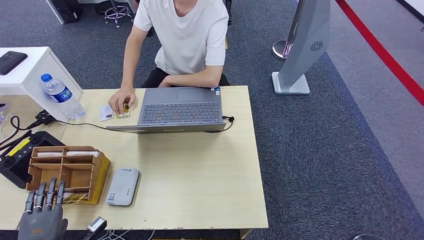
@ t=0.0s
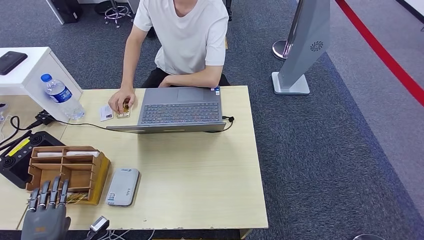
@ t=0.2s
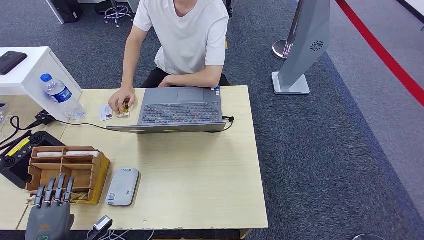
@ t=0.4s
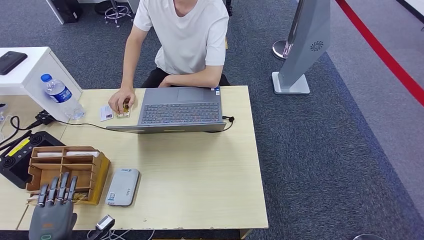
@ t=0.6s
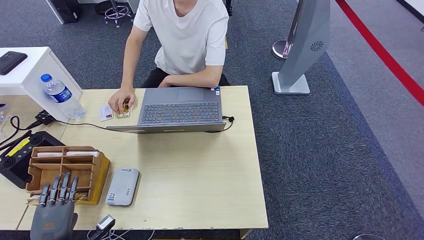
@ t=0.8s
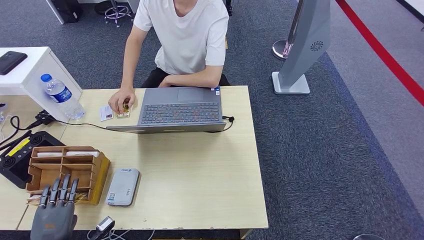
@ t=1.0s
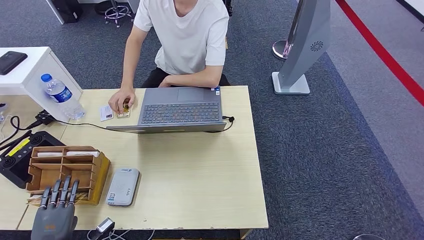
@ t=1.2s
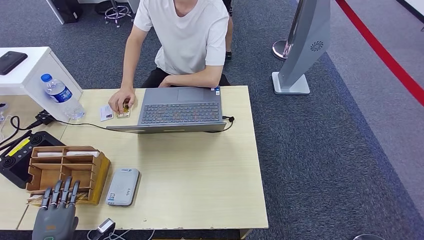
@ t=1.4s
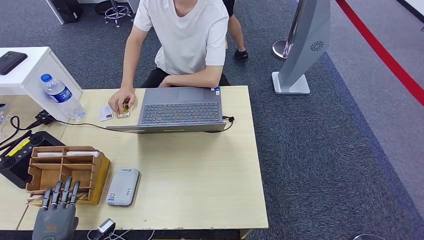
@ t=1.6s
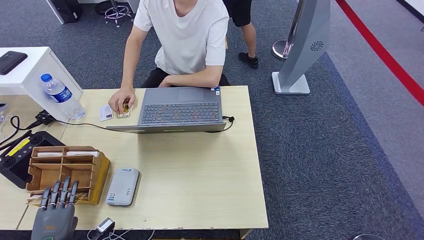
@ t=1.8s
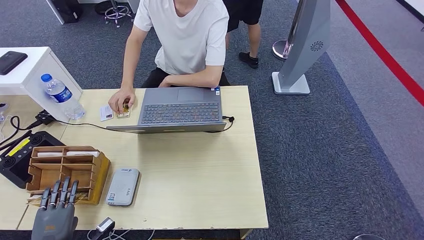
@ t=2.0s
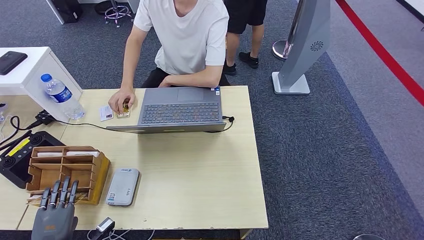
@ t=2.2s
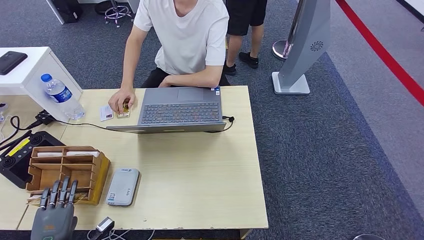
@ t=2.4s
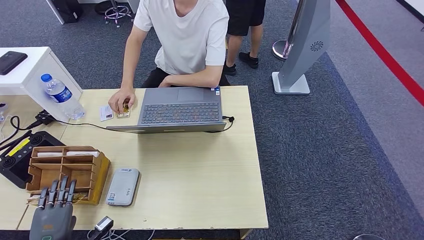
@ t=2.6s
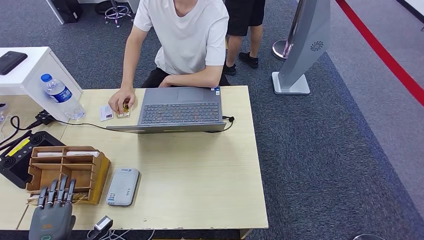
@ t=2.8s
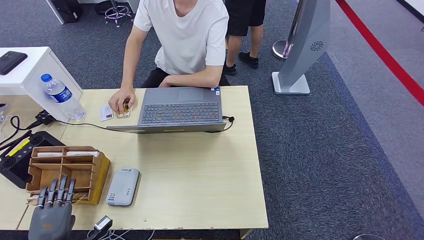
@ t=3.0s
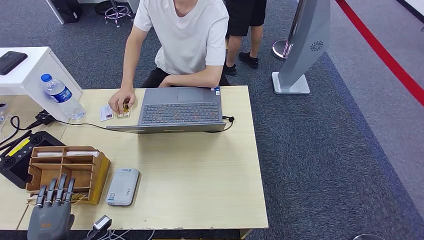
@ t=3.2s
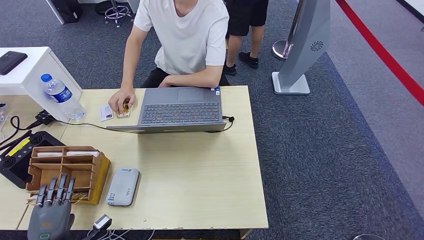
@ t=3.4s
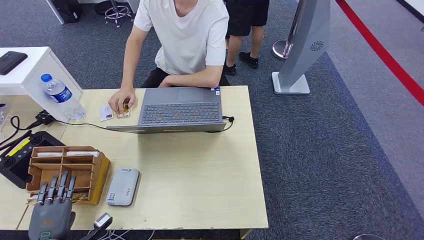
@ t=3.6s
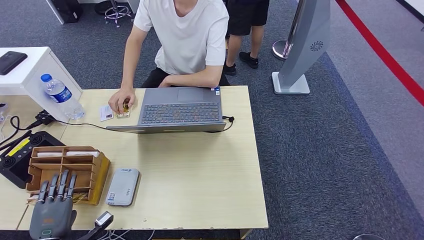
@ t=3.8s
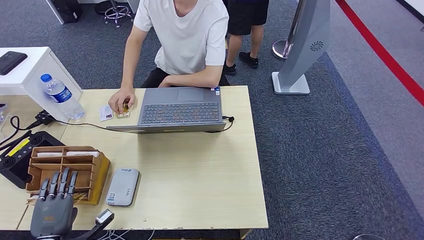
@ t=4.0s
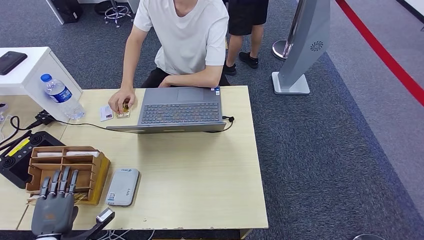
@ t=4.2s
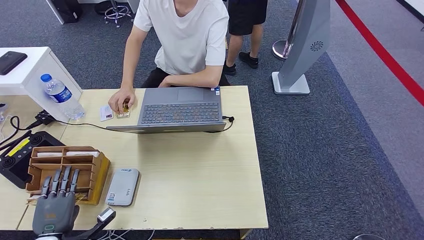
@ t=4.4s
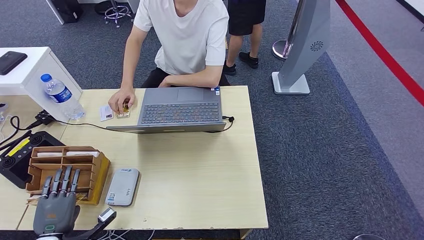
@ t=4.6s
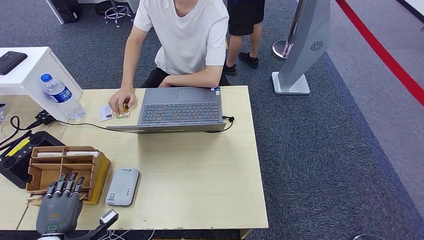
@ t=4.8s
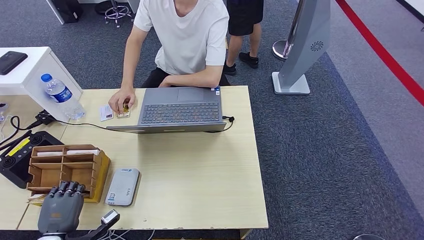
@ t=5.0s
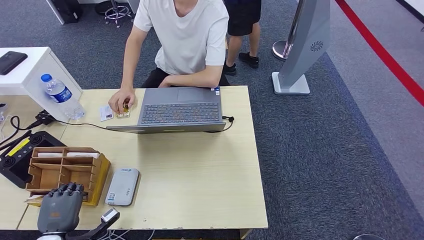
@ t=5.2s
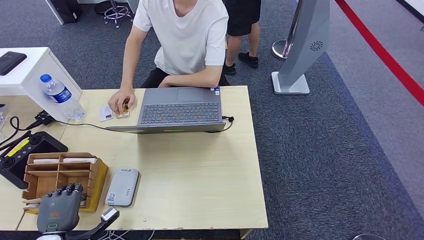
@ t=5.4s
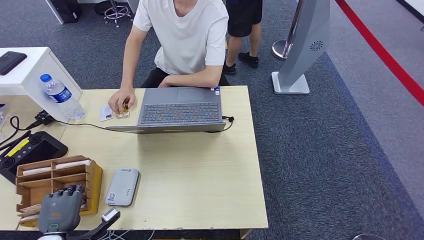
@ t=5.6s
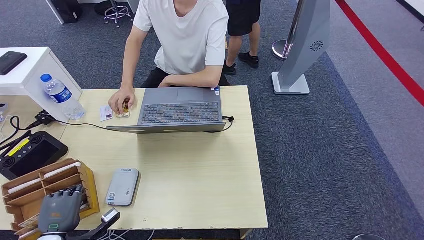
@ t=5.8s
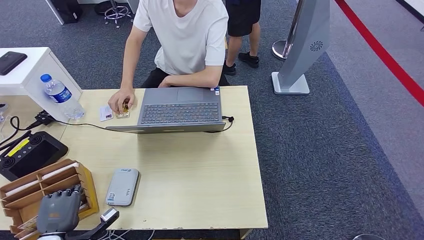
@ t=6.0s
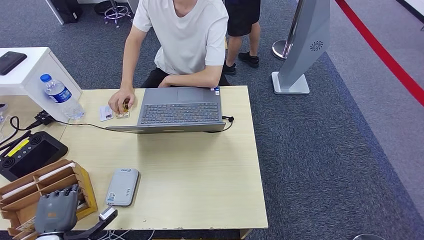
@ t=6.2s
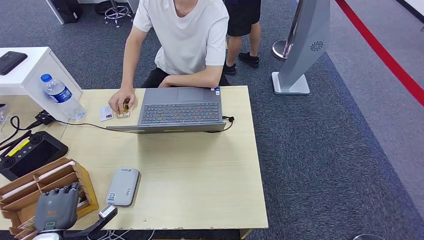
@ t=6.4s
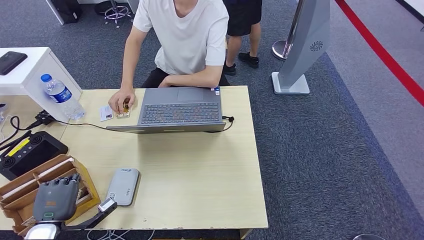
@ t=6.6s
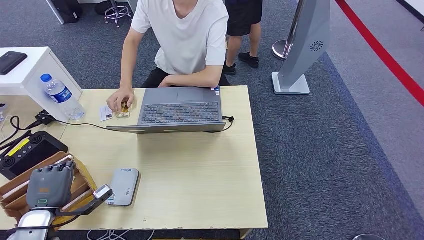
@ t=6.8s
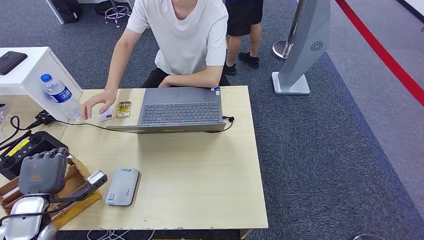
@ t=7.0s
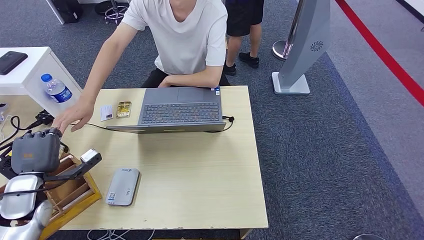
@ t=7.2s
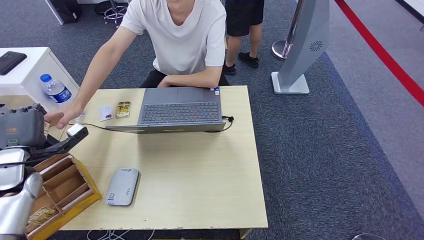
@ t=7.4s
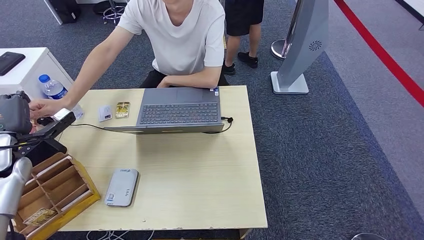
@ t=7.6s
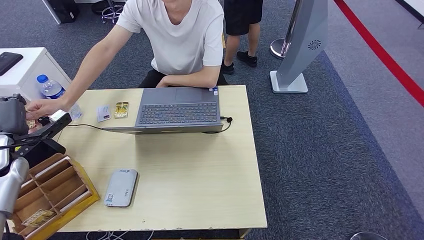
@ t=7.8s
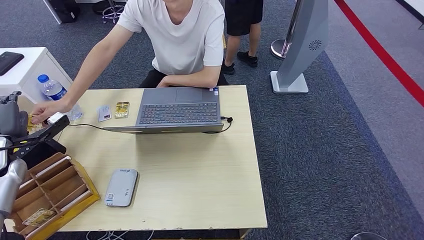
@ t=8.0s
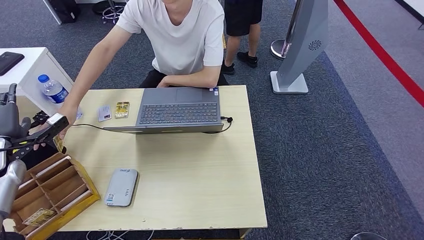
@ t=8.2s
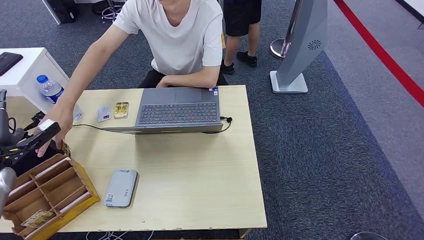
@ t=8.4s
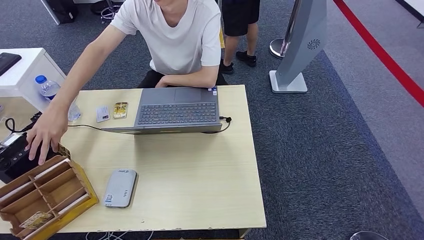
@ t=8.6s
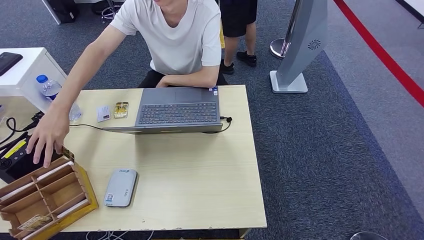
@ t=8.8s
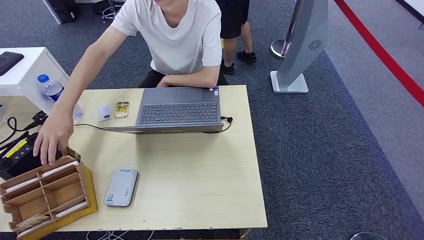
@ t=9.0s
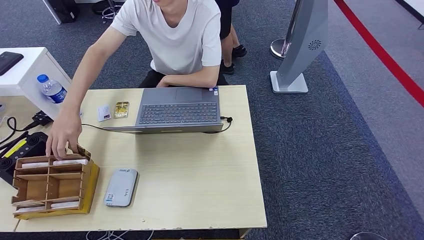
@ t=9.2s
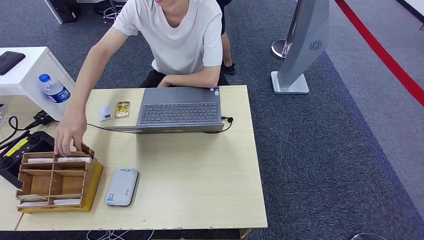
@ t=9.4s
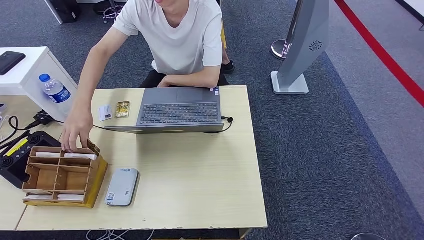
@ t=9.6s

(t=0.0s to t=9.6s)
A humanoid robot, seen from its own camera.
Step, t=0.0s - t=6.2s: Pick up the room key from the key card box.
t=0.0s - t=1.6s: The hands move only a little.
t=1.6s - t=3.2s: Both hands stay put.
t=3.2s - t=4.8s: The hands make only small movements.
t=4.8s - t=6.4s: The two hands keep their place.
t=6.4s - t=8.0s: The left hand moves forward, upward and to the left, roughly 25 cm.
t=8.0s - t=9.6s: The left hand is displaced backward and to the left by about 40 cm.

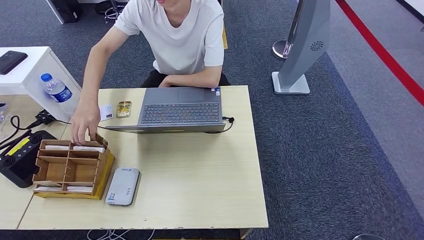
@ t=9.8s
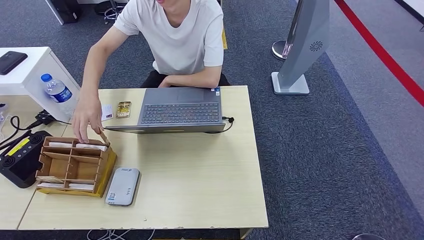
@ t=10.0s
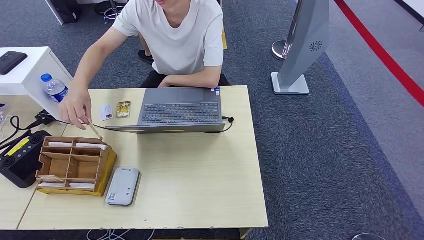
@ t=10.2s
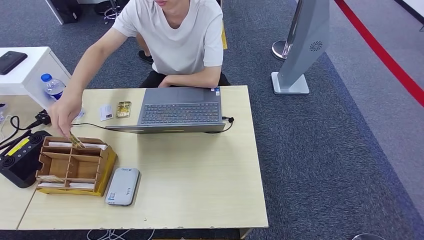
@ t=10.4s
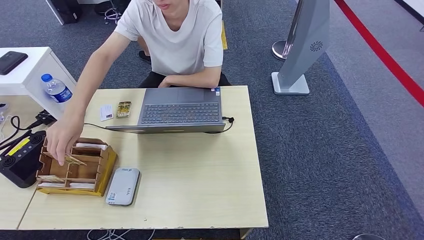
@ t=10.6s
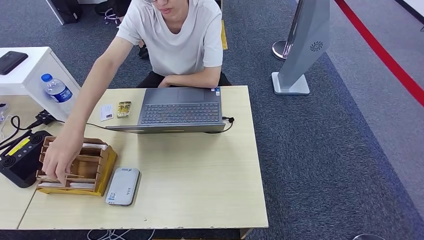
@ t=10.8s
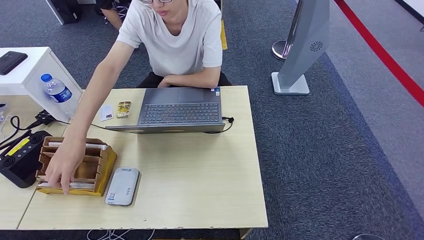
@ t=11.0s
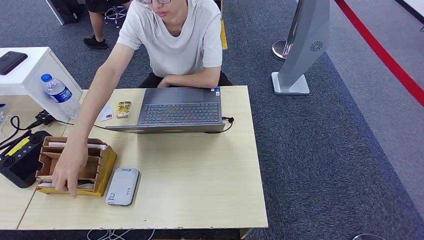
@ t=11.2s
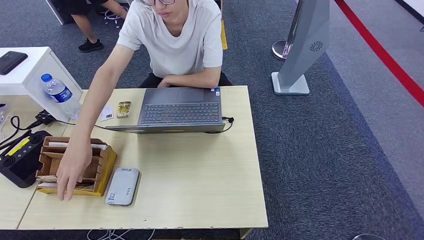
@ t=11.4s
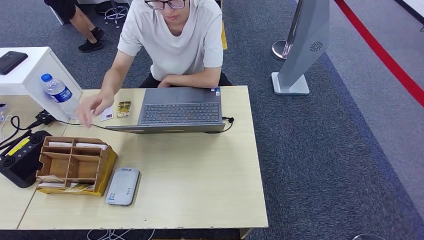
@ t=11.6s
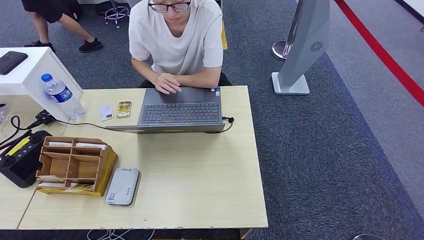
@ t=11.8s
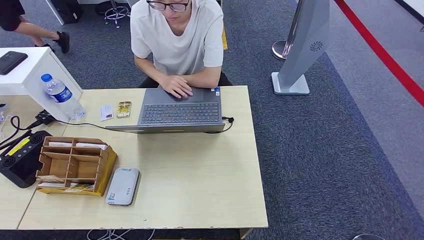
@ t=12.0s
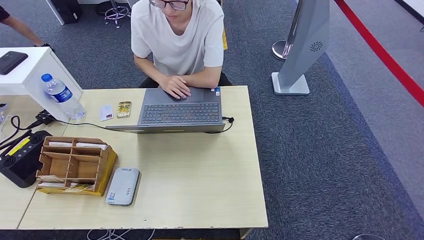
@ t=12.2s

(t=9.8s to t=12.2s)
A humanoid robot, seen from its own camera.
Step, t=9.8s - t=12.2s: Hand the room key to the person.
t=9.8s - t=11.0s: The left hand moves to the right and downward, about 40 cm.

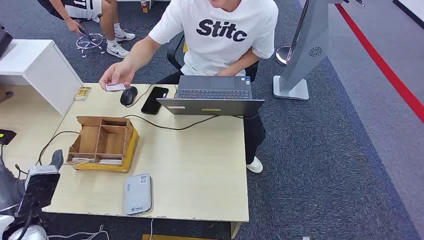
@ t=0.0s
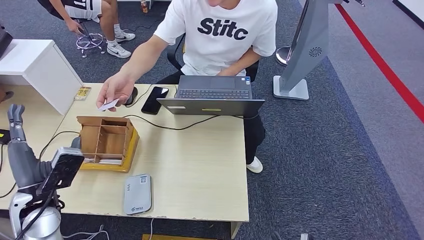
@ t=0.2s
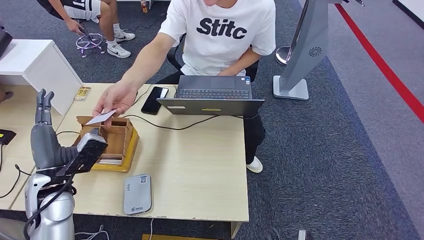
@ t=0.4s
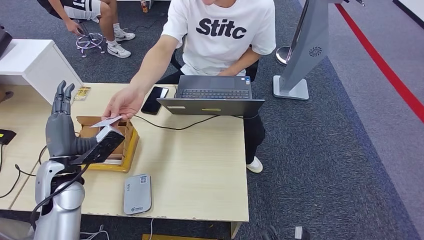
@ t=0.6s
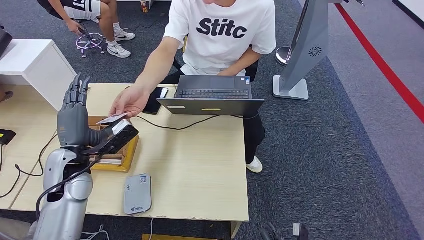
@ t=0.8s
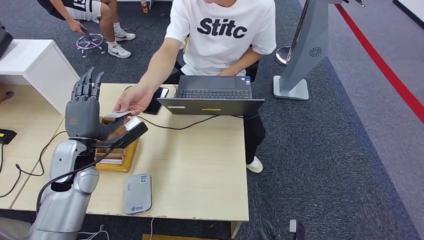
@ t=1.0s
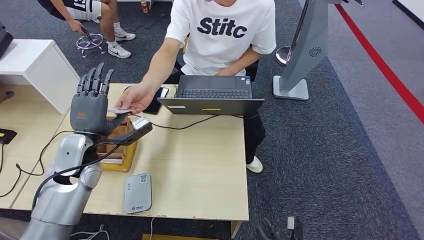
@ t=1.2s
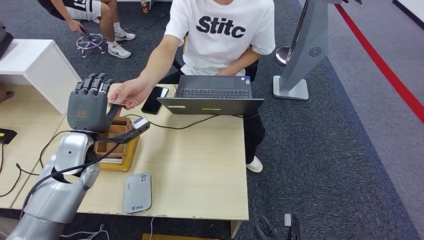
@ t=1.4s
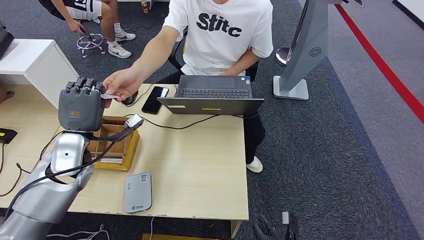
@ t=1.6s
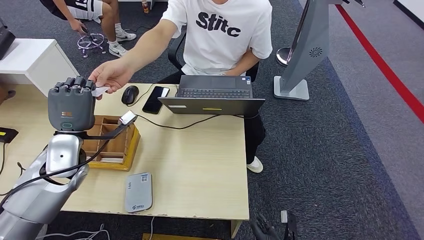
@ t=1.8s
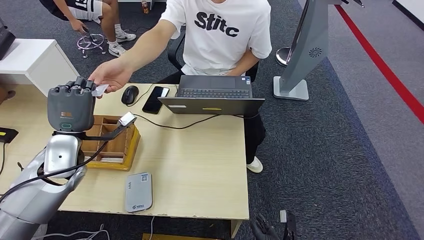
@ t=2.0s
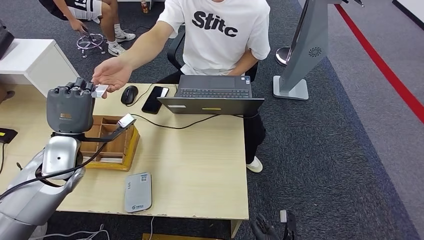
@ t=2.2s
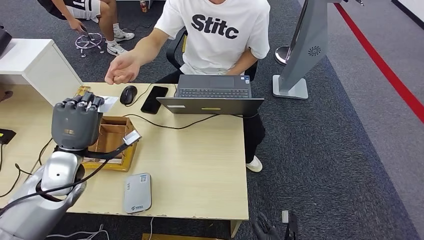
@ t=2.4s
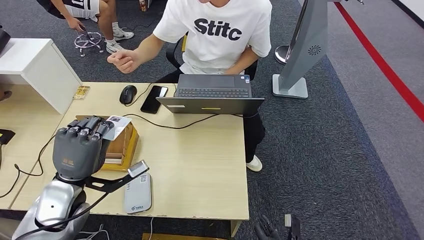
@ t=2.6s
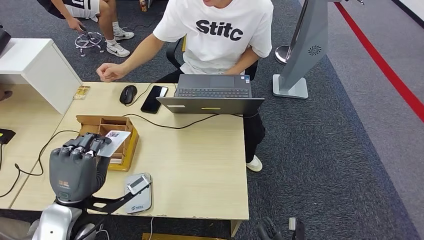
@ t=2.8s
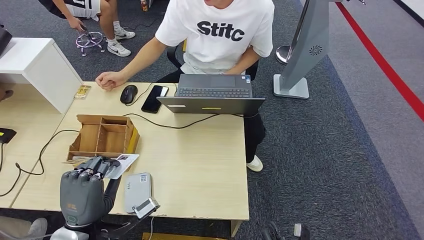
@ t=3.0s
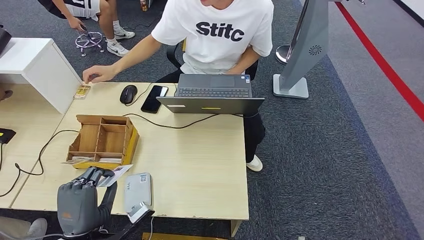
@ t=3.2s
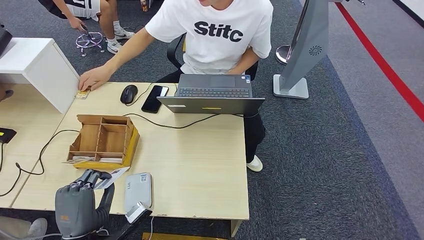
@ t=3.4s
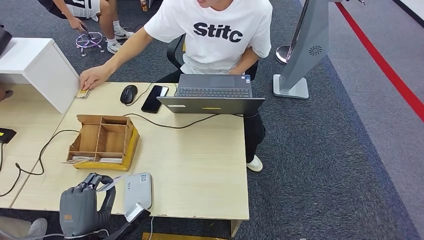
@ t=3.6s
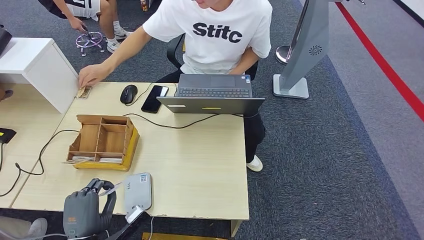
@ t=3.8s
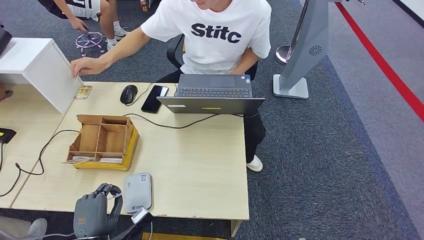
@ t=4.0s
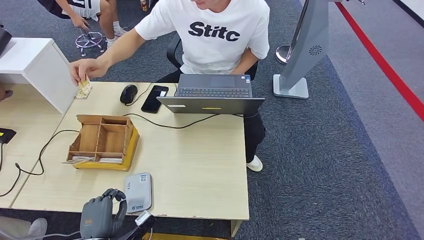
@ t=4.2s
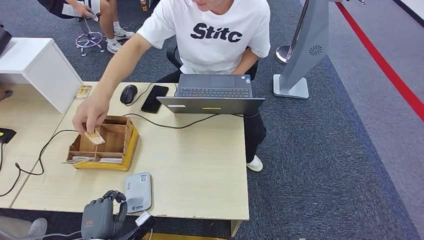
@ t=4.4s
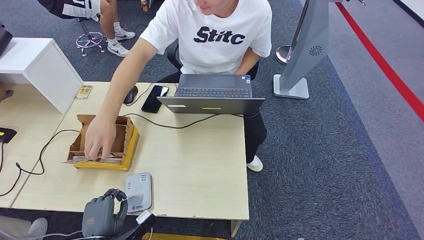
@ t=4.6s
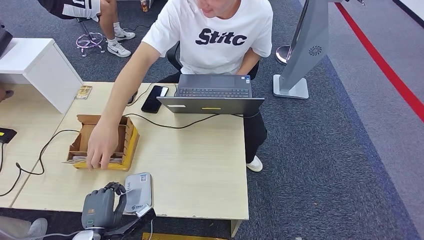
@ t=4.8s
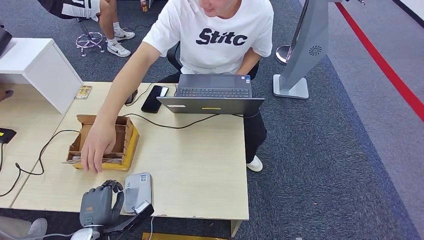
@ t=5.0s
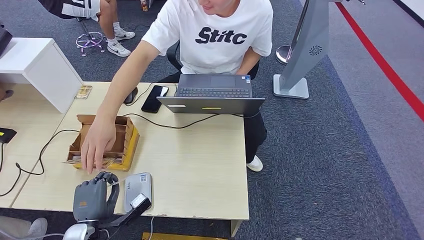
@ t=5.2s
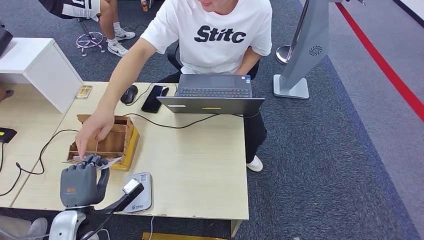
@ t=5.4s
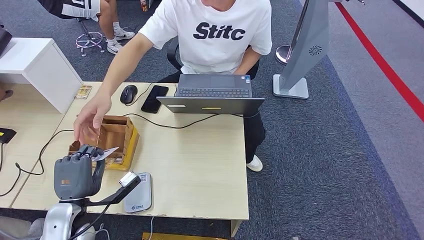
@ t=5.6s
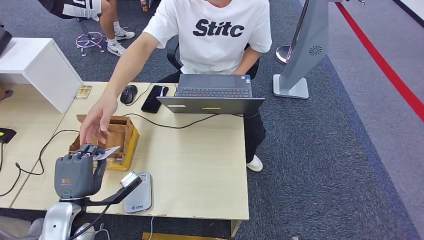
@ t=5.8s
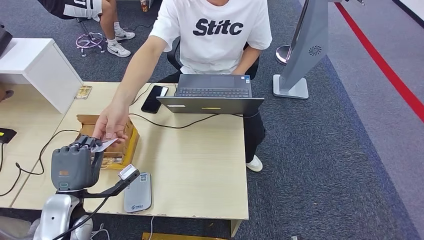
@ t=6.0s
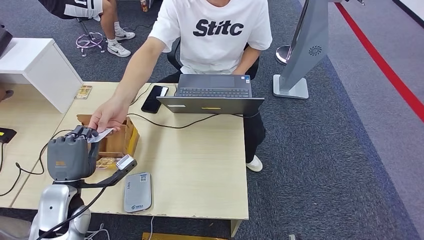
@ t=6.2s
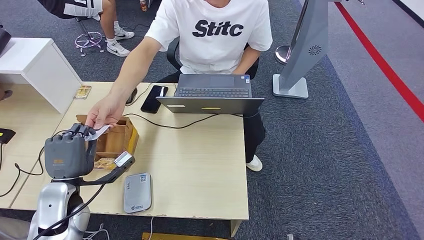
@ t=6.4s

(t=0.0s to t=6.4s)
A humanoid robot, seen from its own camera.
Step, t=0.0s - t=2.6s: Take the ID card from the person's hand.
Step, t=2.8s - t=4.8s: Place the ID card on the card reader.
t=3.2s - t=4.8s: The left hand travels downward by about 10 cm.
t=4.8s - t=6.4s: The left hand shifts about 15 cm upward and forward.
